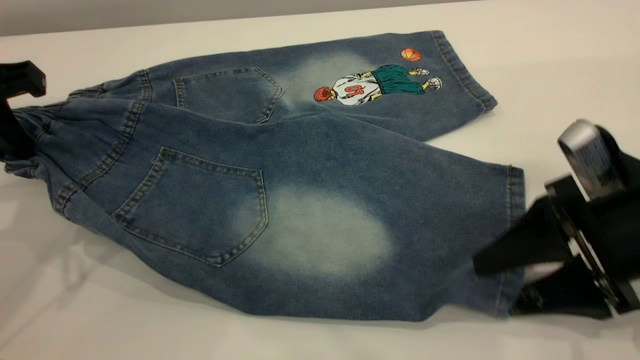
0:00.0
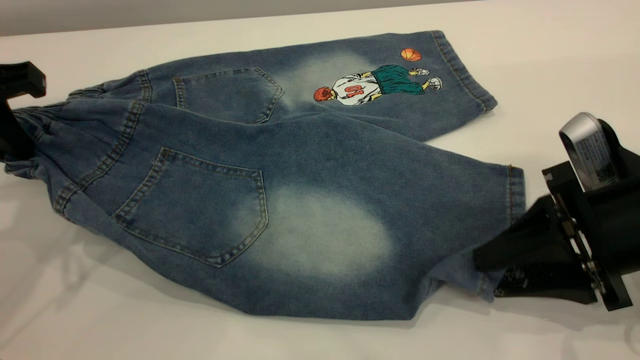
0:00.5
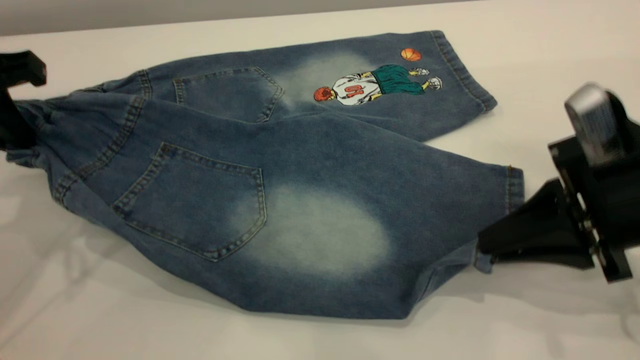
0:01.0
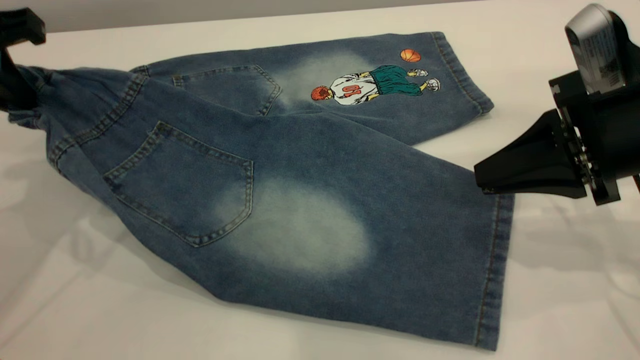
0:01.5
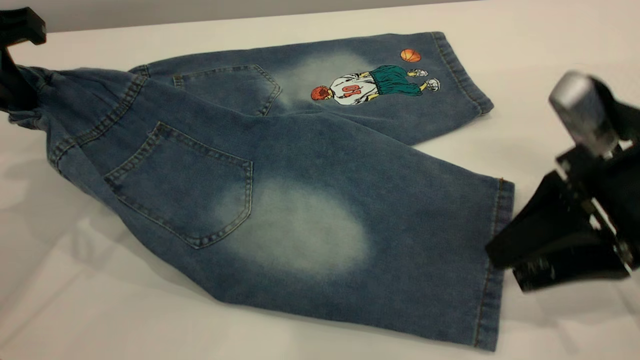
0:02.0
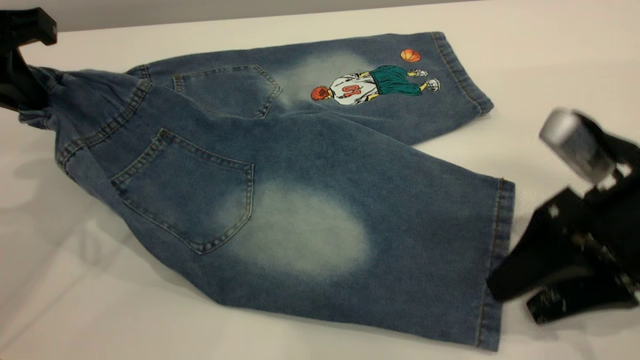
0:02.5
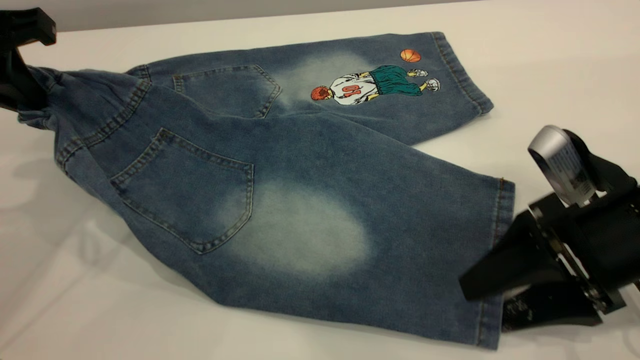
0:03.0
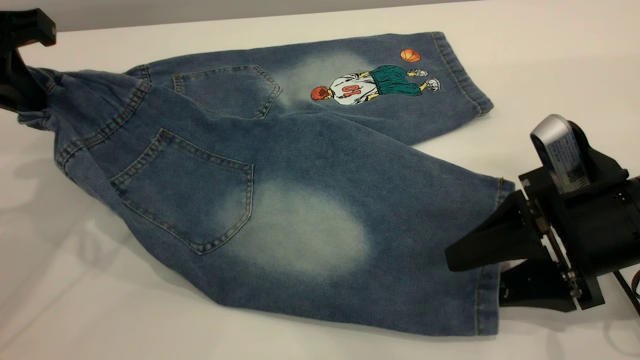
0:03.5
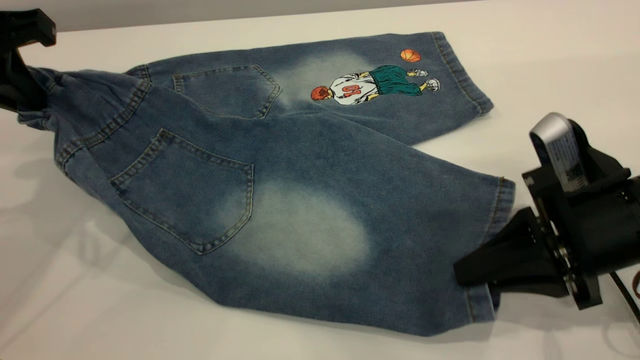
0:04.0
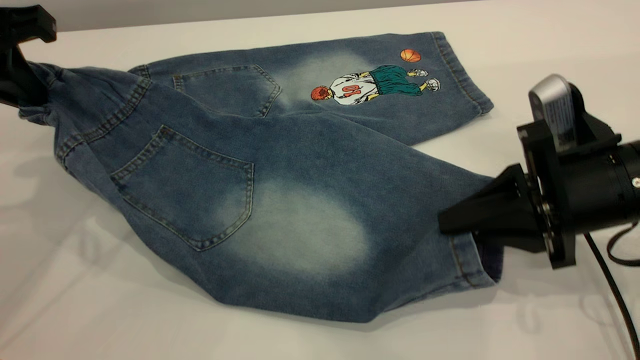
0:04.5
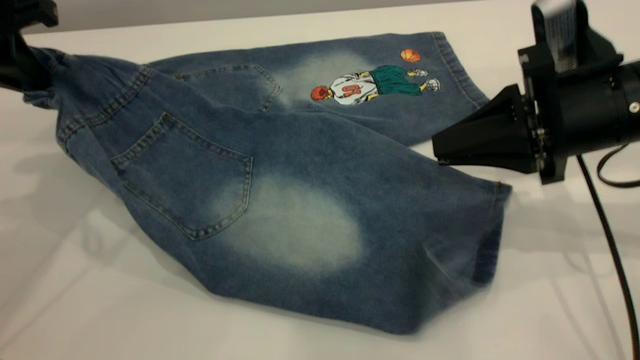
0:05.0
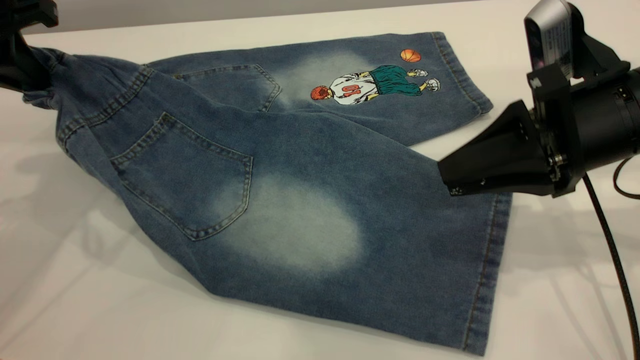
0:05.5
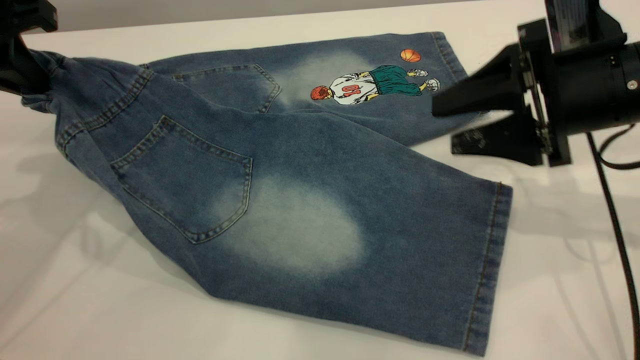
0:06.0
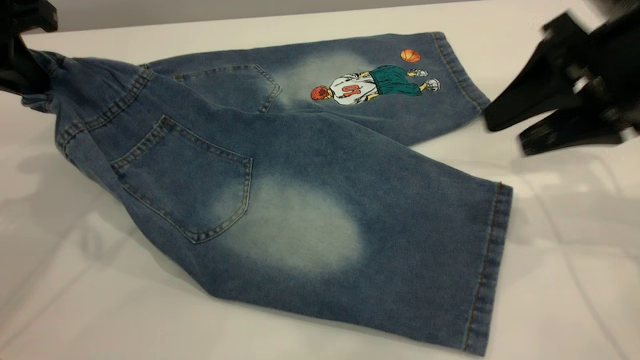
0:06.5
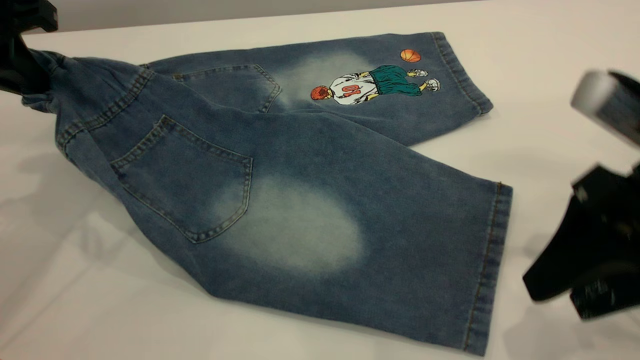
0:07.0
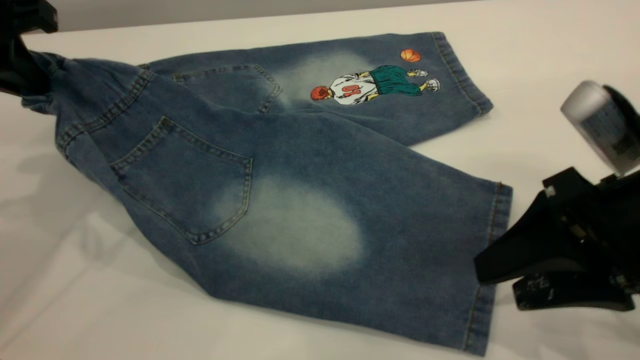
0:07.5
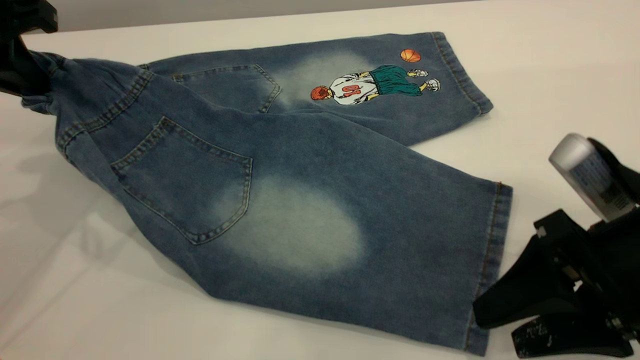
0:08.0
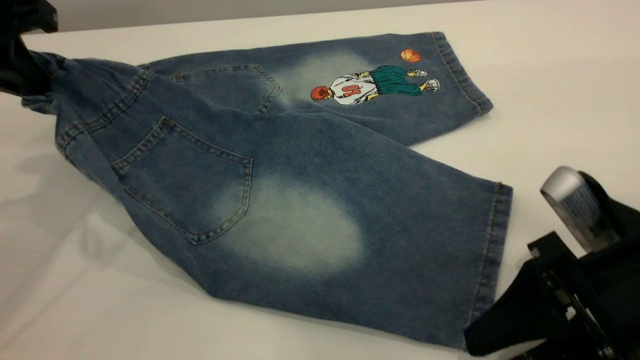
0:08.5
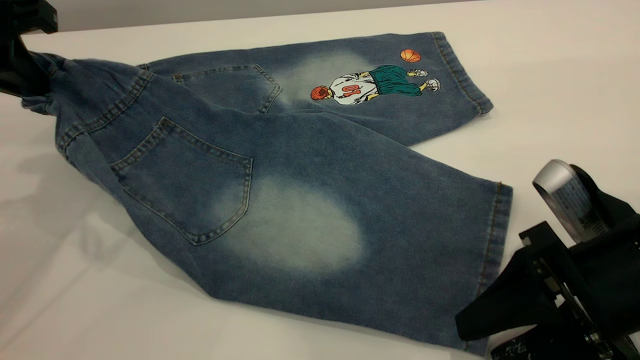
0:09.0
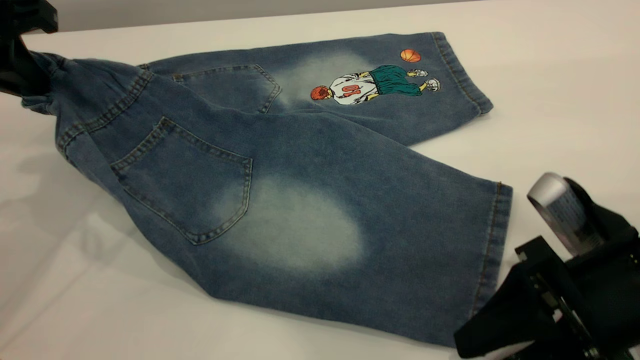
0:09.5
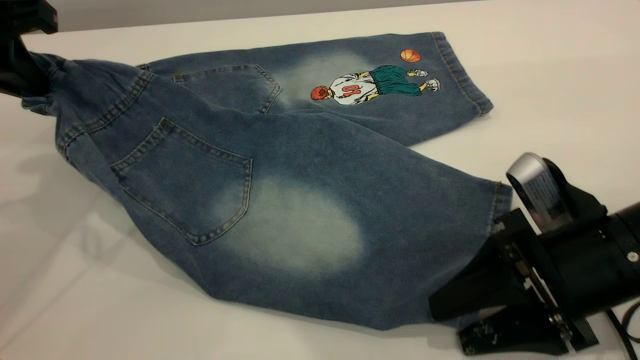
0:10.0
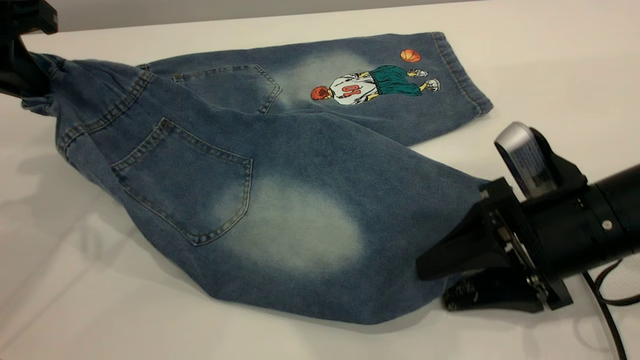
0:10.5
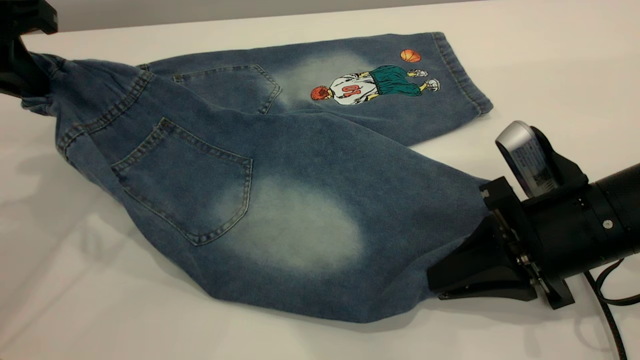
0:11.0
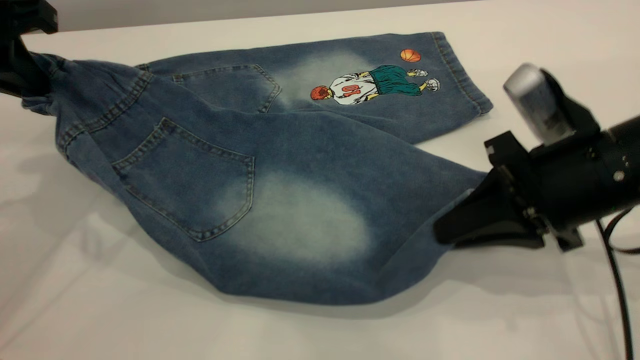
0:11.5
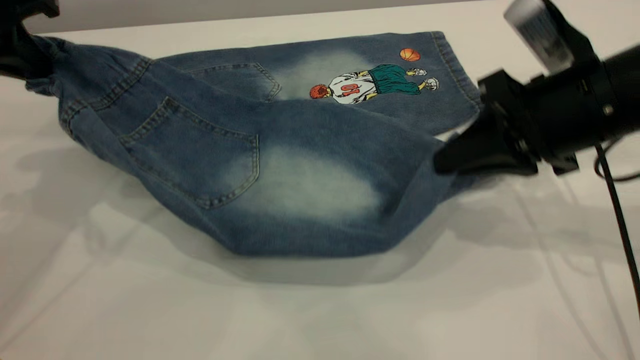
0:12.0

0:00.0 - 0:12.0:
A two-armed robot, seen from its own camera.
0:00.0 - 0:02.0: The right gripper closes, then opens again.
0:02.0 - 0:04.0: The right gripper closes its fingers.
0:04.0 - 0:06.0: The right gripper is displaced forward and upward by some 10 cm, and opens its fingers.
0:06.0 - 0:08.0: The right gripper is displaced backward by roughly 10 cm.
0:08.0 - 0:10.0: The grippers move only a little.
0:10.0 - 0:12.0: The right gripper goes about 10 cm forward and upward, and closes.

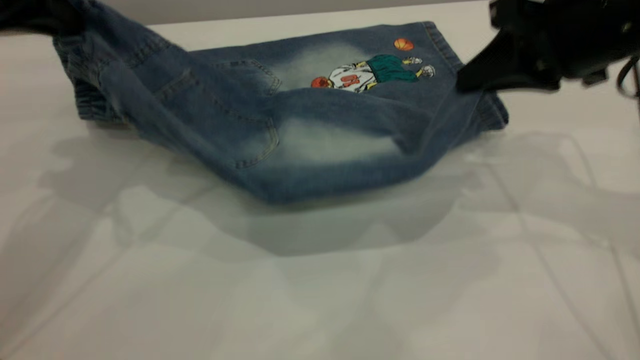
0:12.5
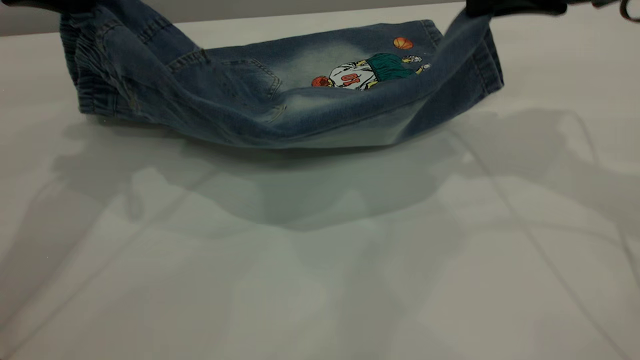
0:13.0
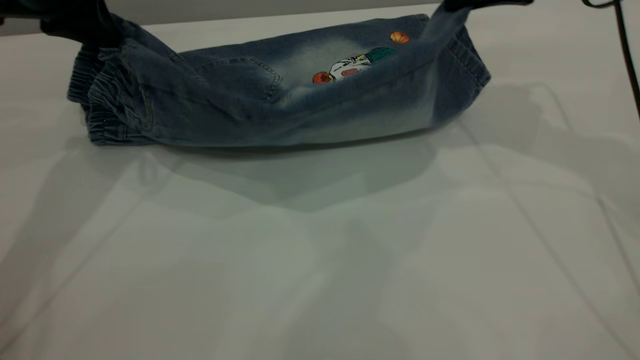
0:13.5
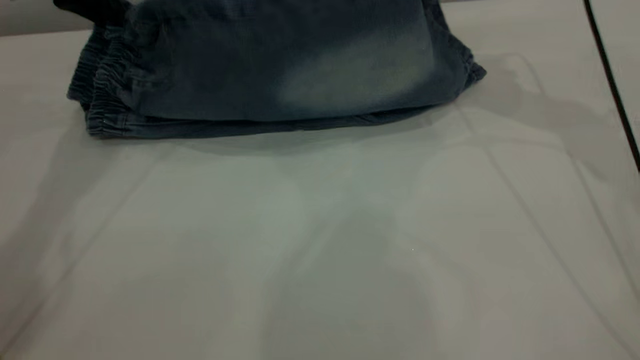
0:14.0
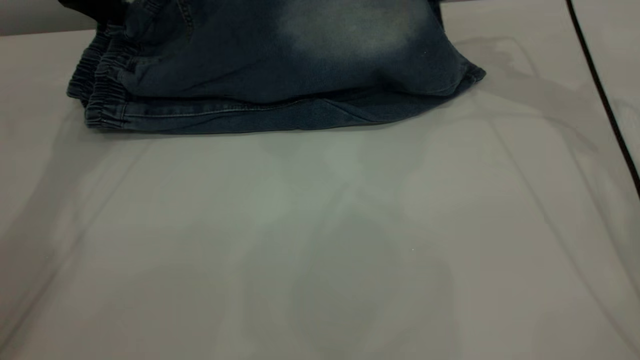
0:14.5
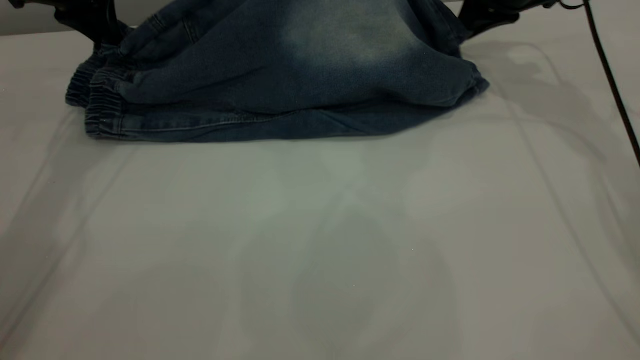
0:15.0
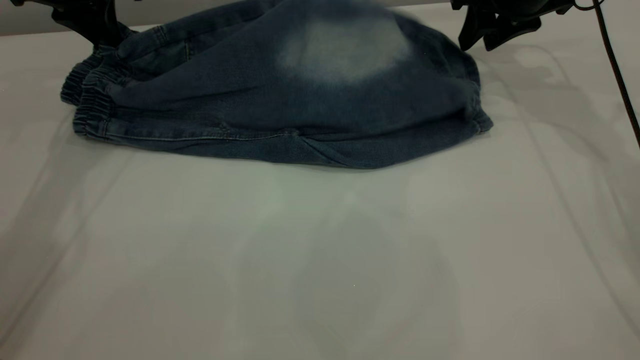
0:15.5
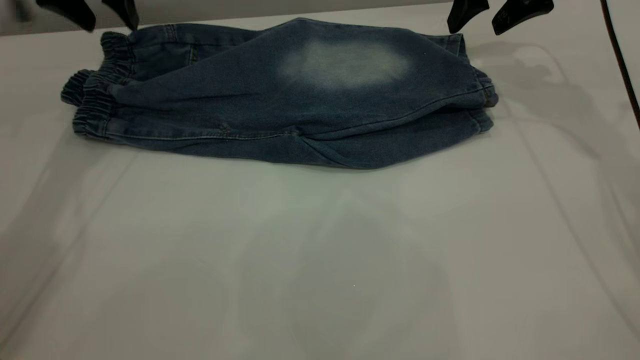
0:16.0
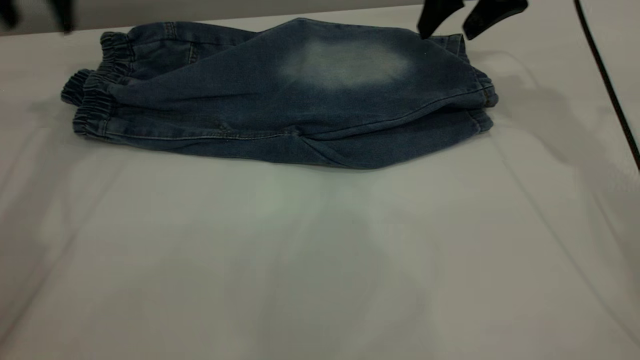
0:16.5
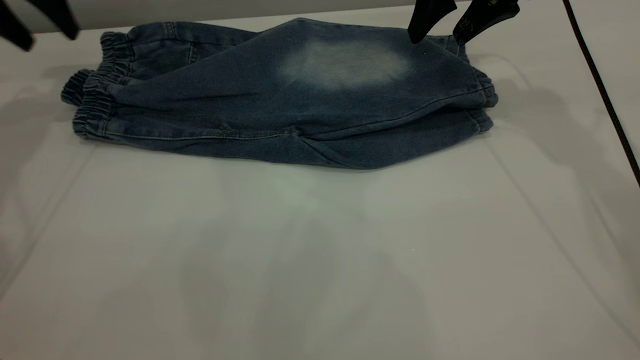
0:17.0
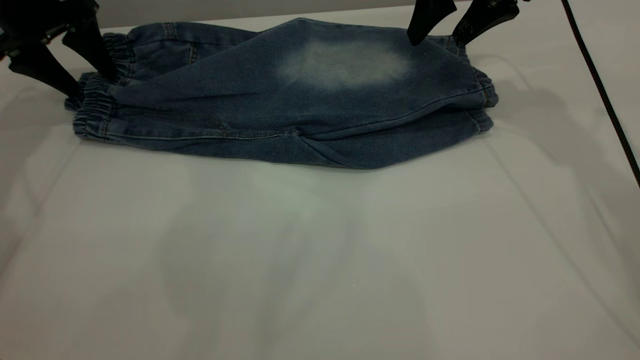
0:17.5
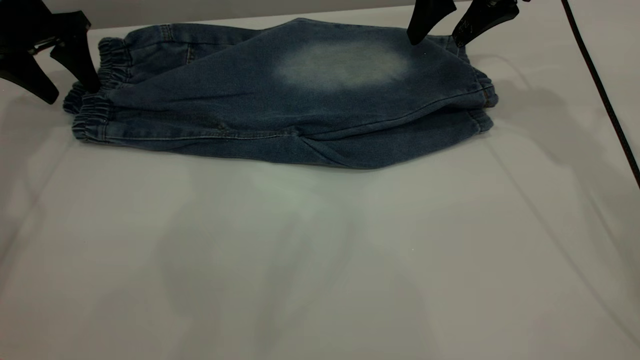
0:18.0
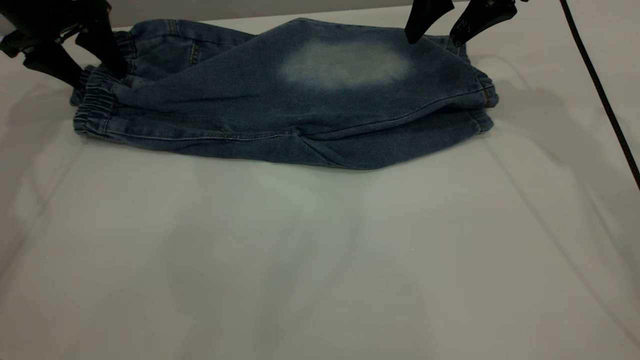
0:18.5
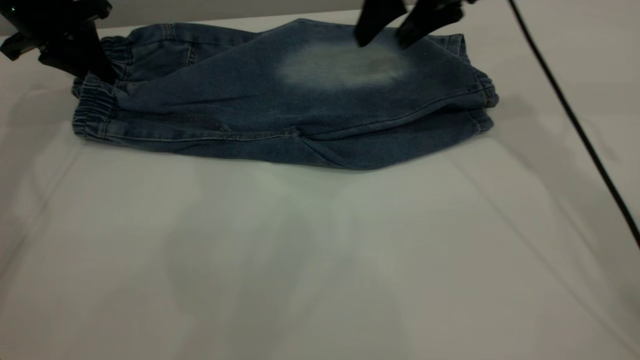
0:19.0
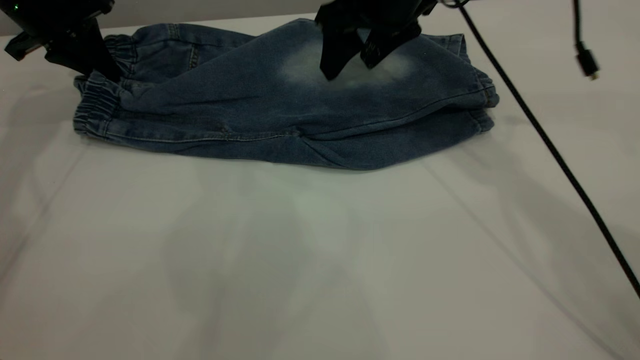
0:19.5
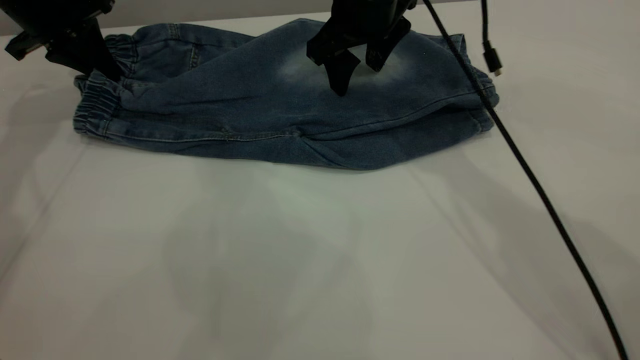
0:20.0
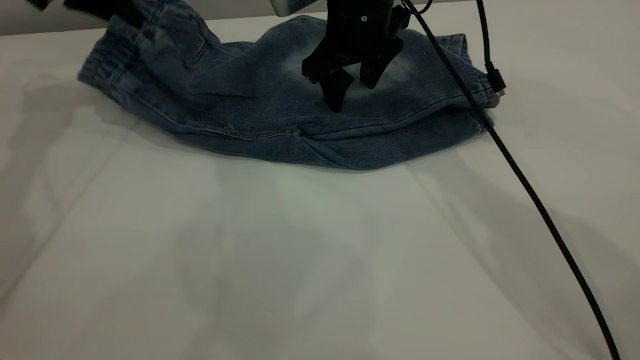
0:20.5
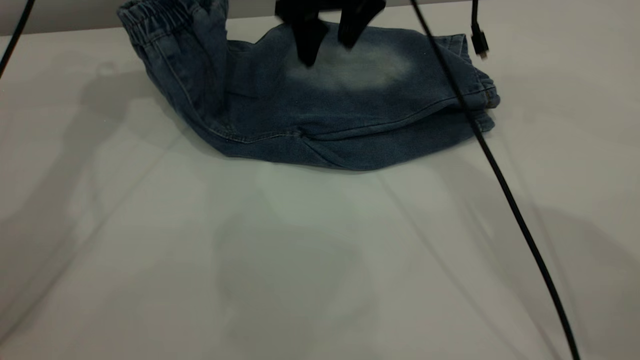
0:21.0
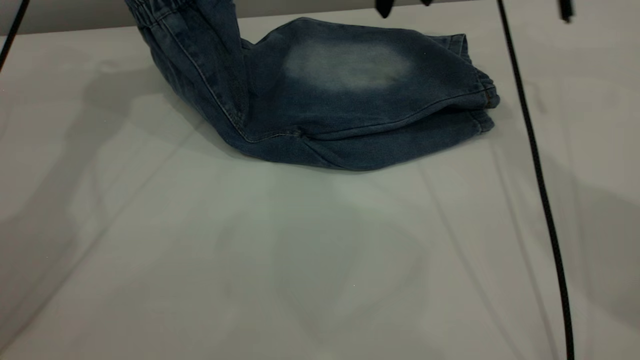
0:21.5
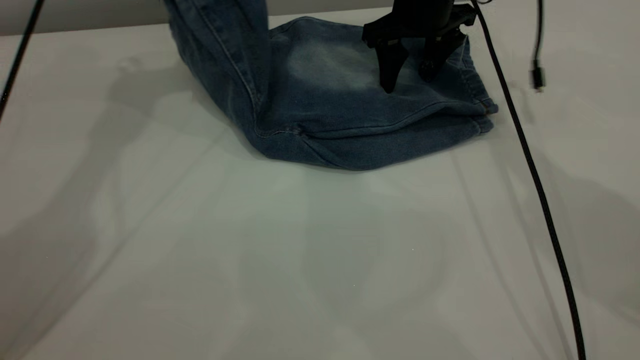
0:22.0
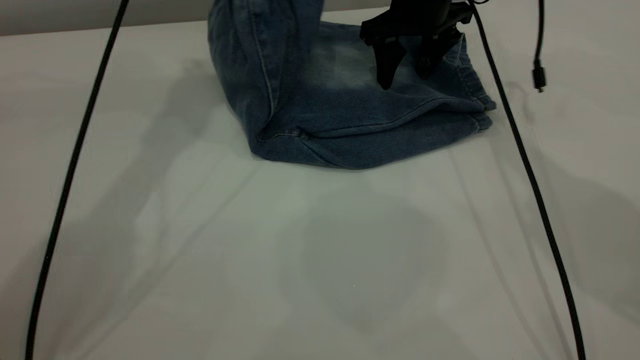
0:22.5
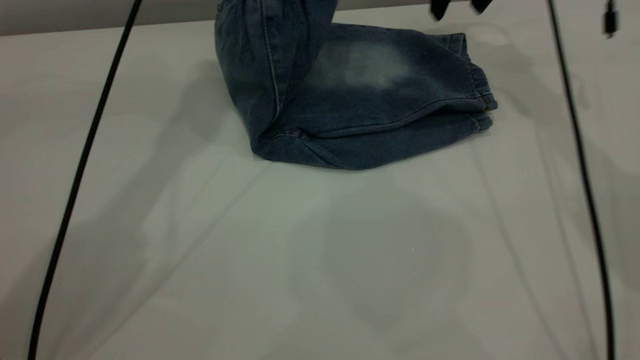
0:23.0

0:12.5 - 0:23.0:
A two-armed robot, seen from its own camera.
Step, 0:12.5 - 0:16.0: Fold the bottom of the pants upward.
0:12.5 - 0:14.5: The two grippers go about 15 cm forward.
0:14.5 - 0:16.5: The left gripper ends up about 5 cm from where it was, and opens. Meanwhile the right gripper opens.
0:16.5 - 0:19.0: The right gripper heads to the left, covering roughly 5 cm. Meanwhile the left gripper shifts approximately 10 cm downward, and closes its fingers.
0:19.0 - 0:21.0: The left gripper moves to the right and upward, roughly 15 cm. Meanwhile the right gripper is displaced to the left by roughly 10 cm.
0:21.0 - 0:23.0: Both grippers move to the right, approximately 15 cm.
